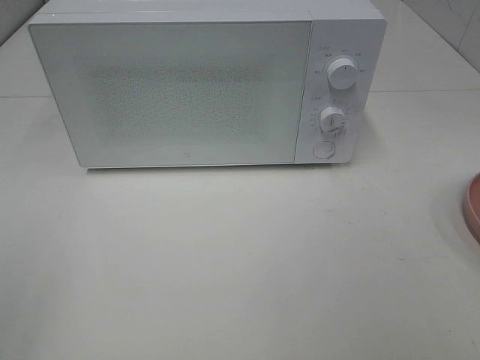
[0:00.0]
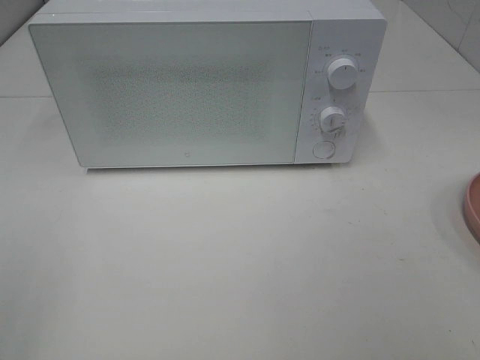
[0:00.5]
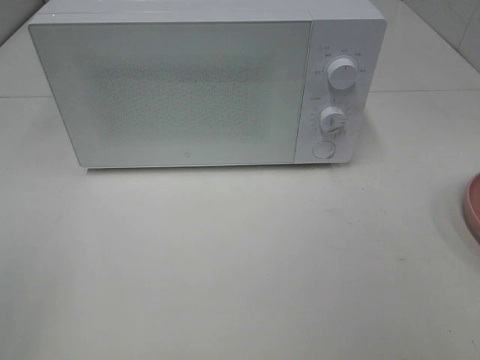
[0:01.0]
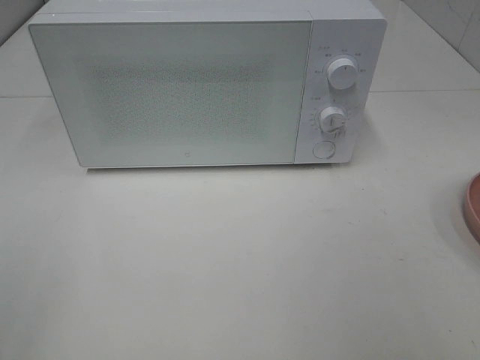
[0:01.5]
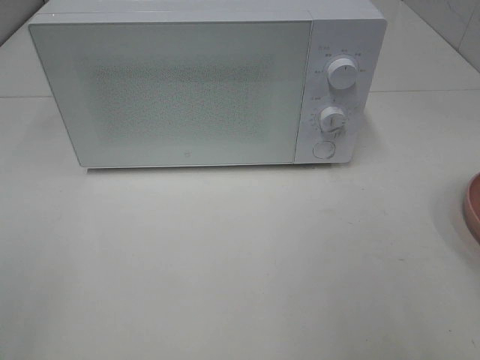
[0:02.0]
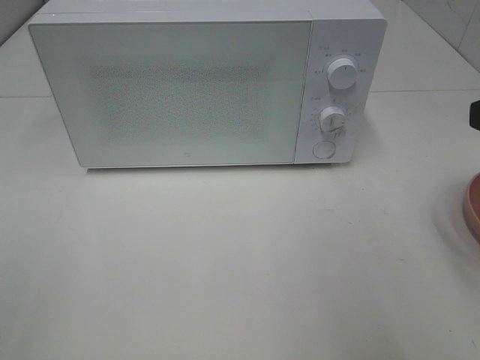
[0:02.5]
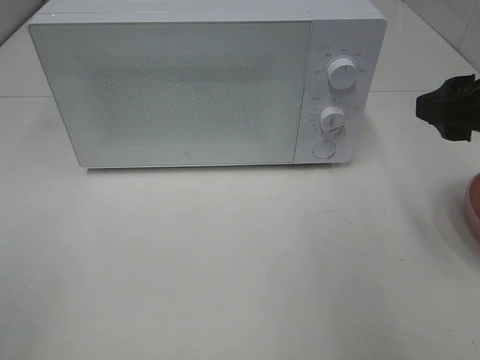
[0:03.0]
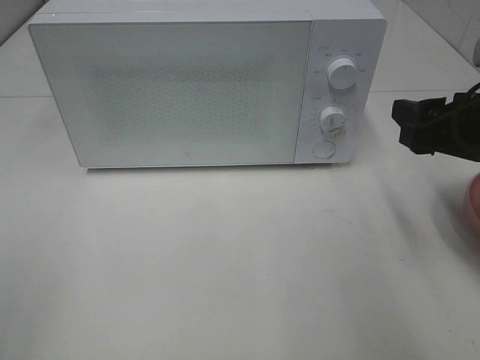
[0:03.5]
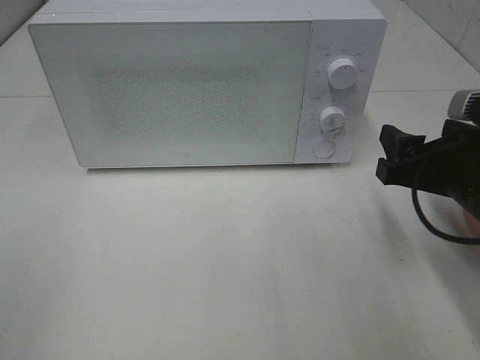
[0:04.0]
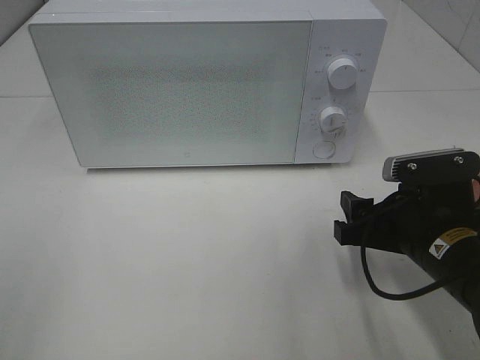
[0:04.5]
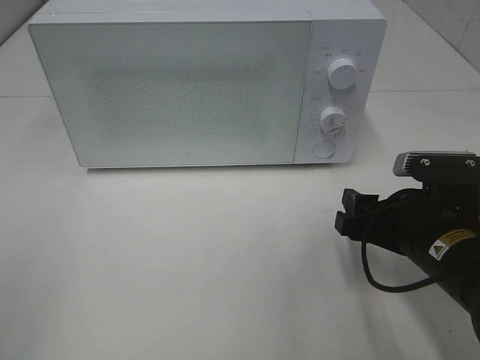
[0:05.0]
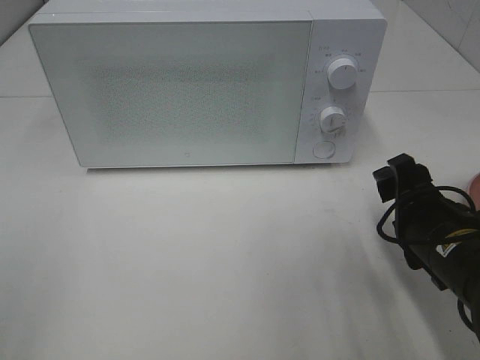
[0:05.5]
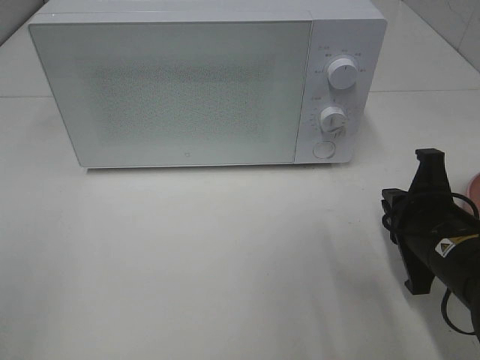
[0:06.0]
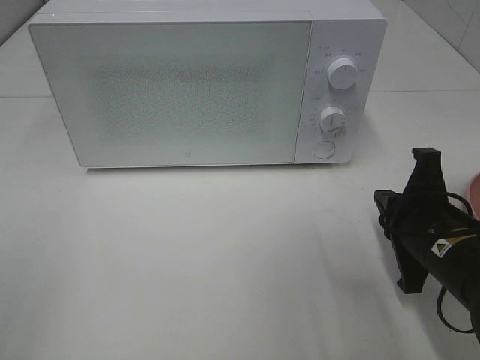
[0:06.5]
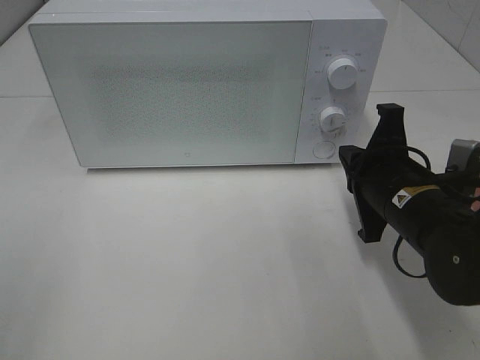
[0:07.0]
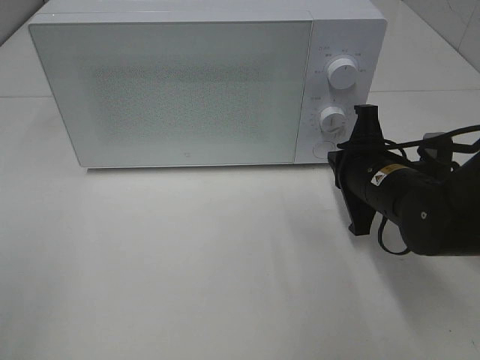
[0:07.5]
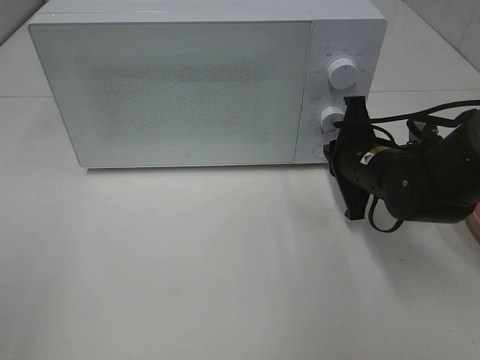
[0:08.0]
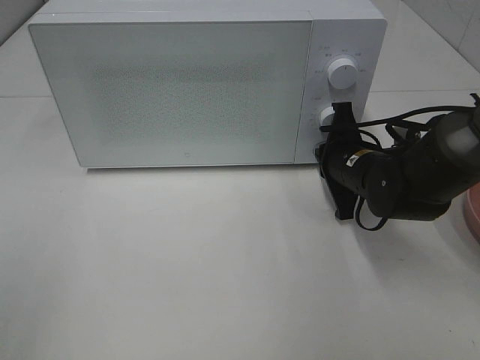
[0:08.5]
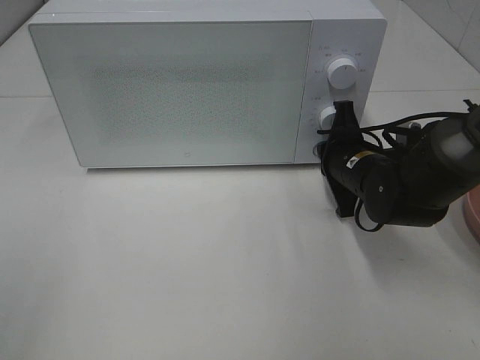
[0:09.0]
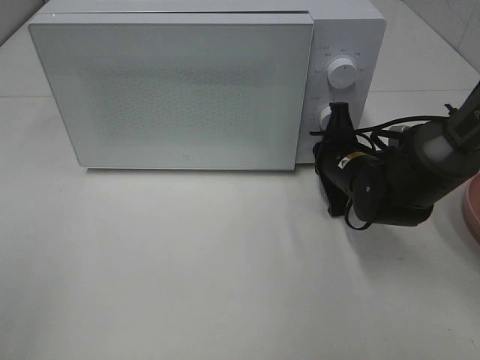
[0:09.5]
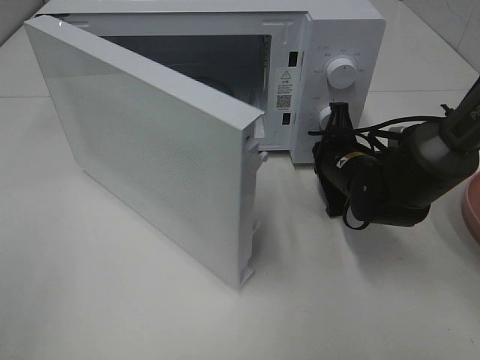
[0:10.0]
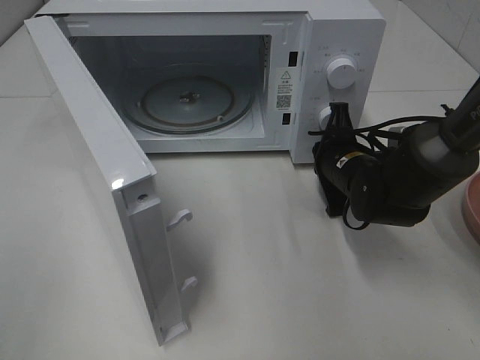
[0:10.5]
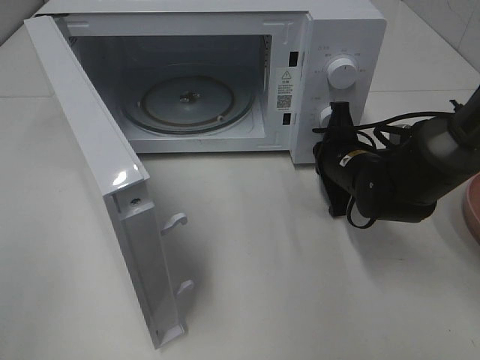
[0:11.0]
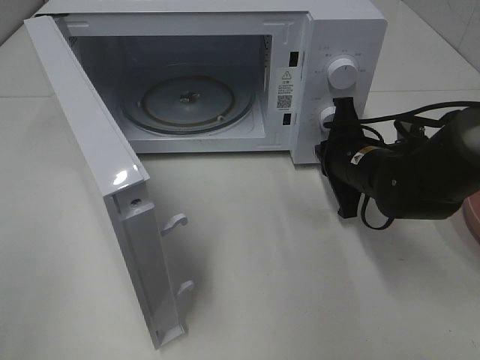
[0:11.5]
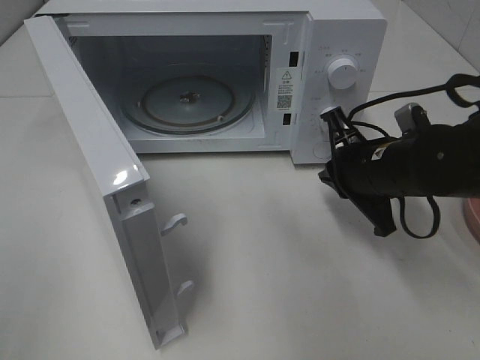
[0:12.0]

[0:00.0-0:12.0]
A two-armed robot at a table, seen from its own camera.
Task of the whole recording: Heat Sandwich.
Step, 0:00.0 to 0:11.0: Right hand: press the switch.
0:02.0 to 0:04.0: The right gripper travels downward and forward by roughly 15 cm.
0:04.0 to 0:06.0: The right gripper is displaced downward by approximately 5 cm, and closes.
0:06.0 to 0:08.0: The right gripper goes about 10 cm forward.
0:10.0 to 0:12.0: The right gripper heads backward and upward, covering approximately 10 cm.

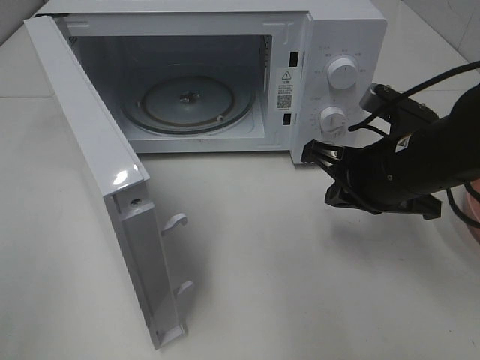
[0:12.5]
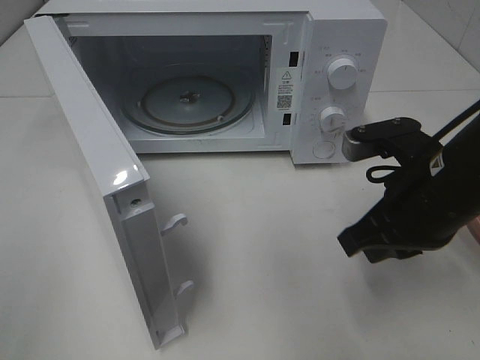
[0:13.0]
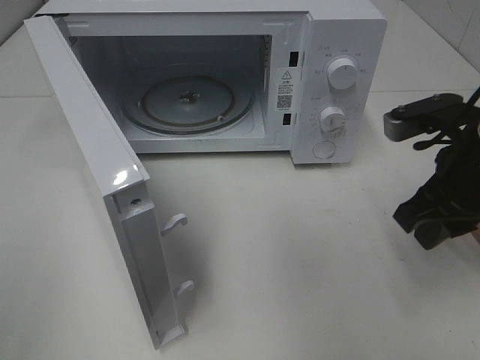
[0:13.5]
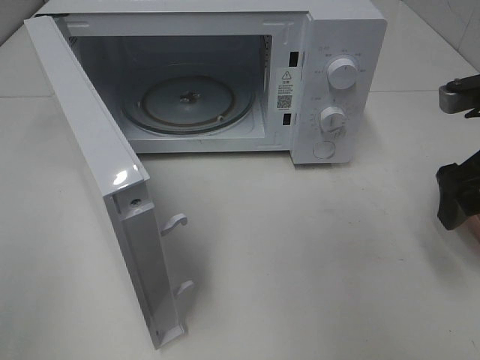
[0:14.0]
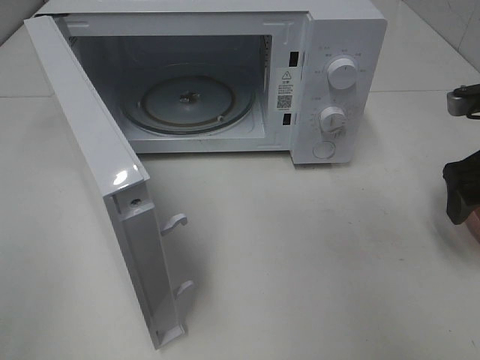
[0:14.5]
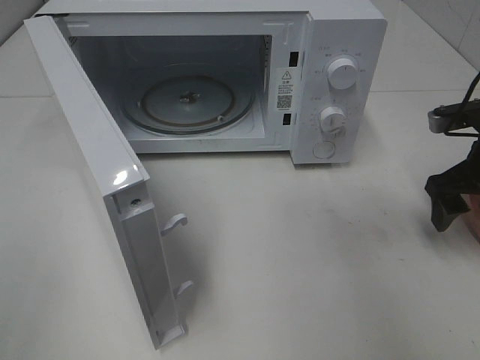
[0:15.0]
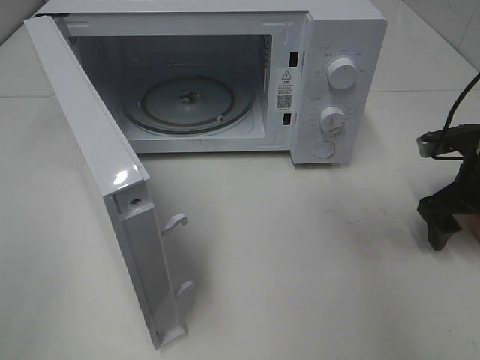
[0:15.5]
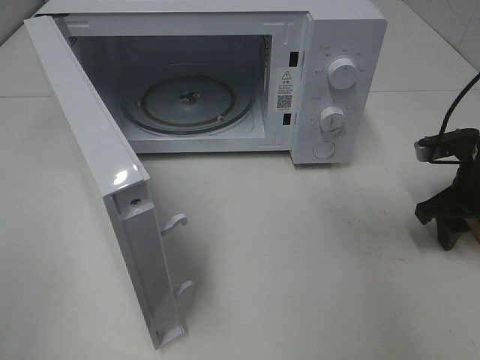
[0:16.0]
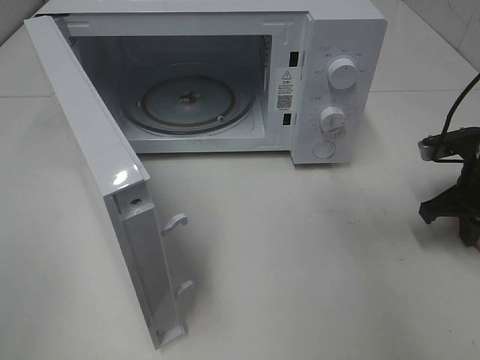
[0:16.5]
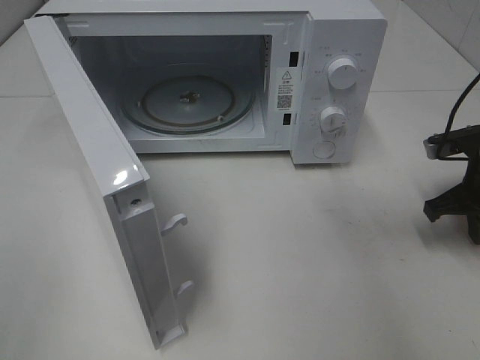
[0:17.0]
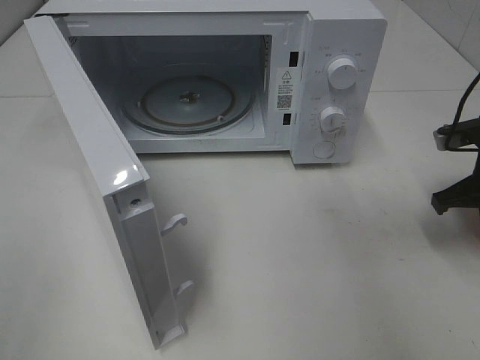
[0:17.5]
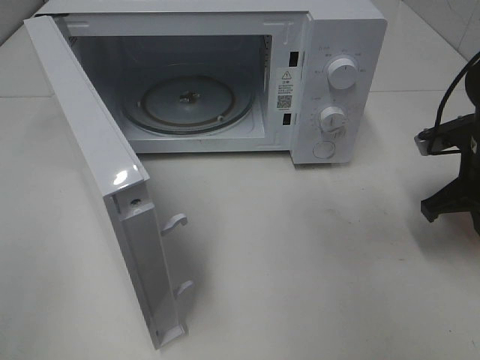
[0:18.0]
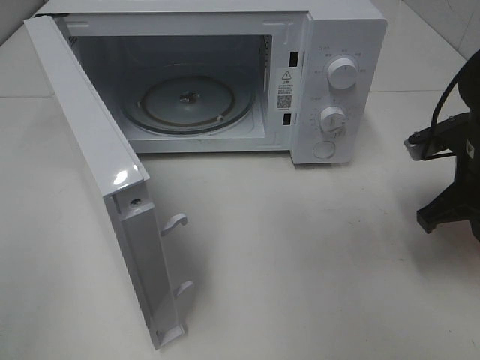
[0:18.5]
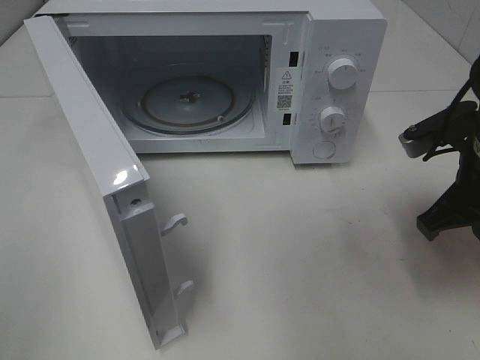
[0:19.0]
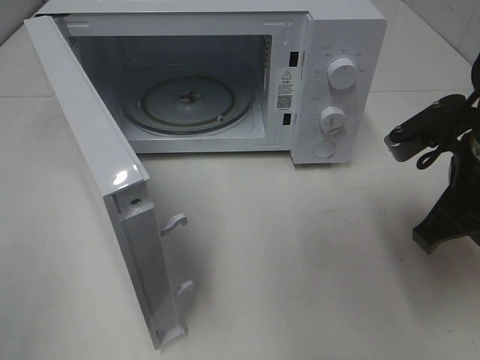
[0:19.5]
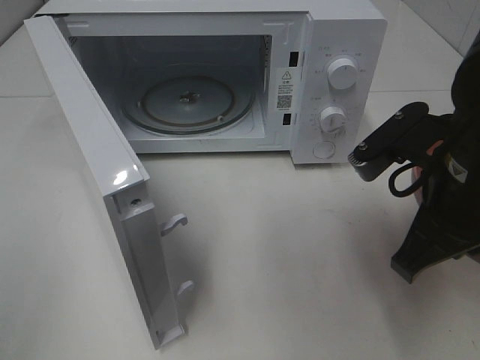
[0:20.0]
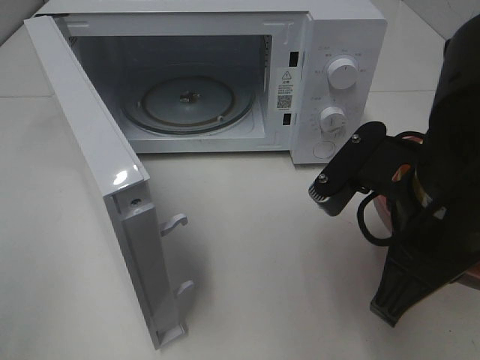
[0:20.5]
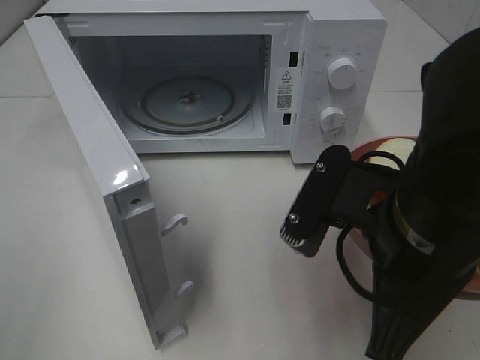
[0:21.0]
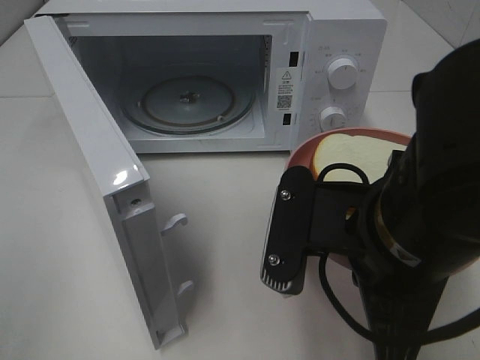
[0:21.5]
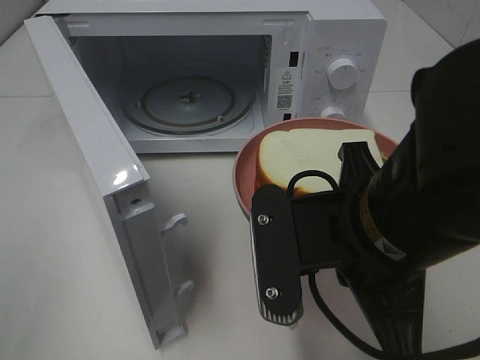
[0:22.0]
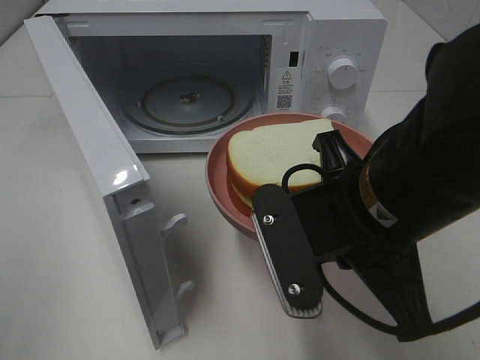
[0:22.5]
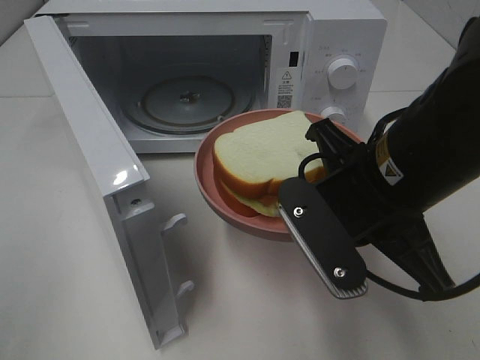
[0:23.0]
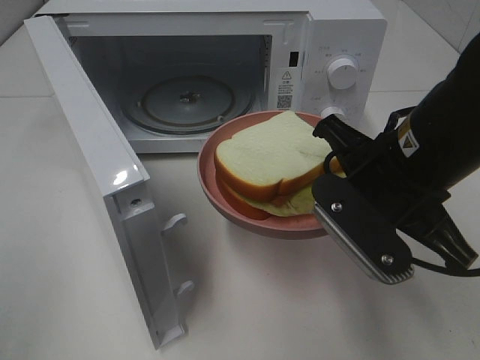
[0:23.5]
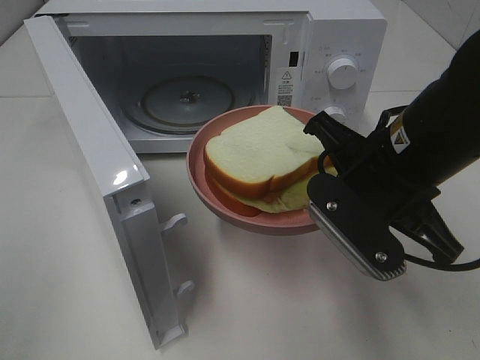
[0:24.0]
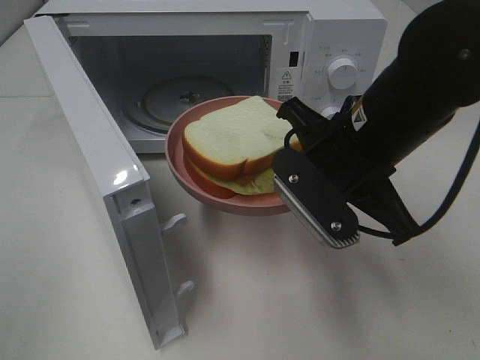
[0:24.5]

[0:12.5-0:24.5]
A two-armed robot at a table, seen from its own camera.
Task of the whole recording: Heat Sandwich.
Step, 0:12.5 to 0:16.5: Right hand: grab the plate with the sandwich.
0:12.5 to 0:14.5: The right gripper moves to the right, approximately 15 cm, and opens its fingers.
0:14.5 to 0:16.5: The right gripper is displaced downward by some 10 cm, and closes.
0:16.5 to 0:18.5: The right gripper shifts by approximately 5 cm.
0:18.5 to 0:20.5: The right gripper goes about 20 cm to the left, backward and upward.
0:22.5 to 0:24.5: The right gripper shifts some 10 cm forward.

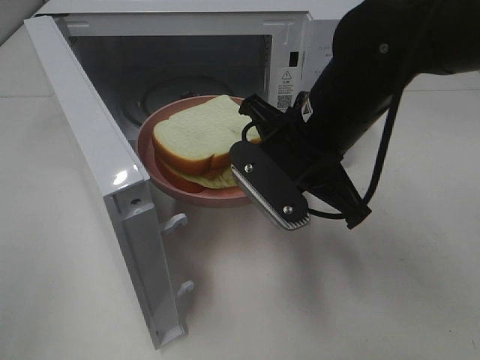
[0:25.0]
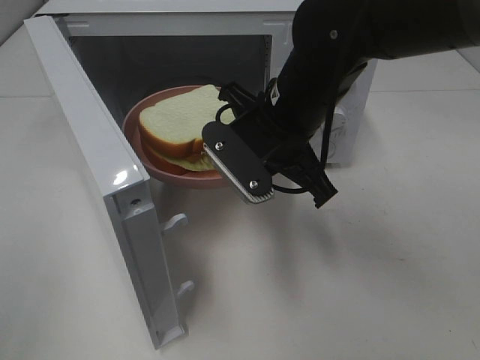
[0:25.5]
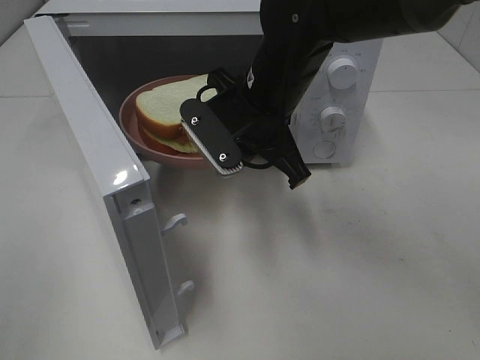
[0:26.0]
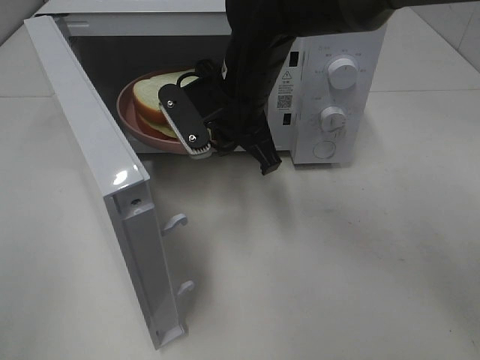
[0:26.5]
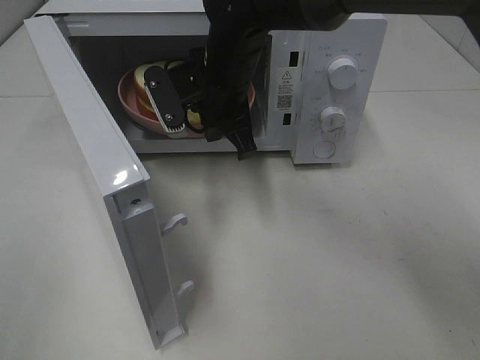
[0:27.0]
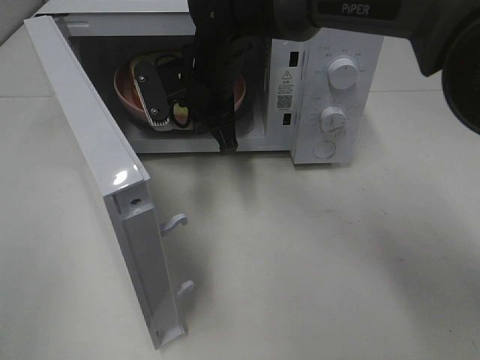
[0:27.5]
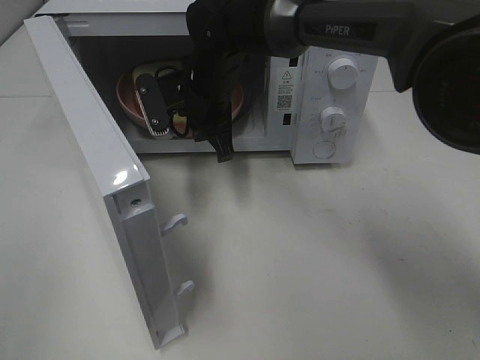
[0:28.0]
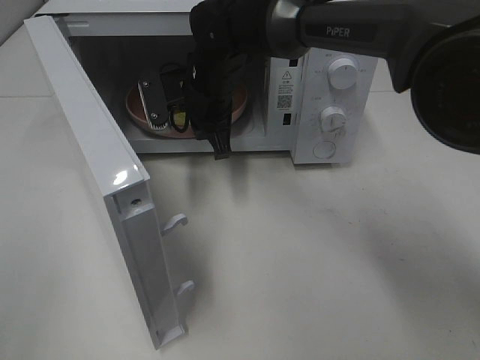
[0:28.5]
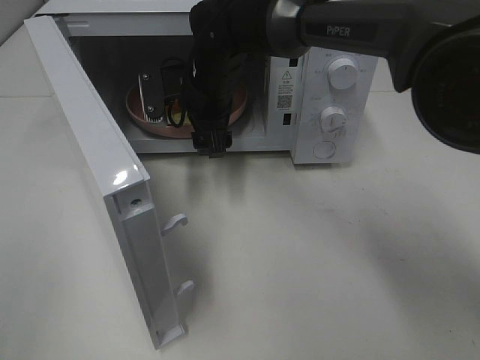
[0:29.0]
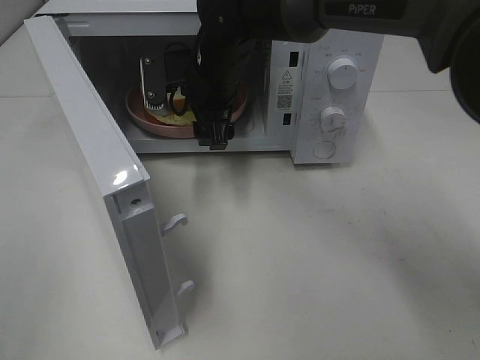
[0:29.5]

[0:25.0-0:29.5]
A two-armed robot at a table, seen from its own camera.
Task of the whole recording: Heat Sandwich.
0:25.0 to 0:27.0: The right gripper goes roughly 15 cm forward and to the left.
0:27.0 to 0:29.5: The right gripper opens up.
